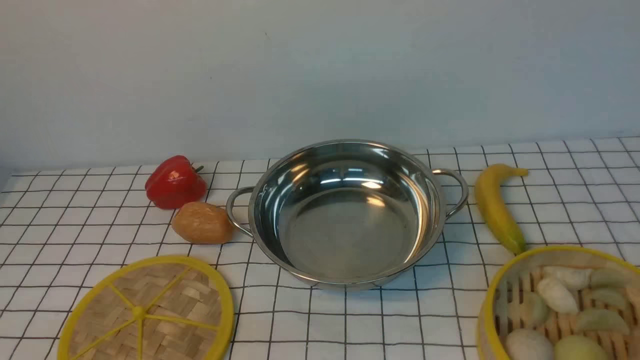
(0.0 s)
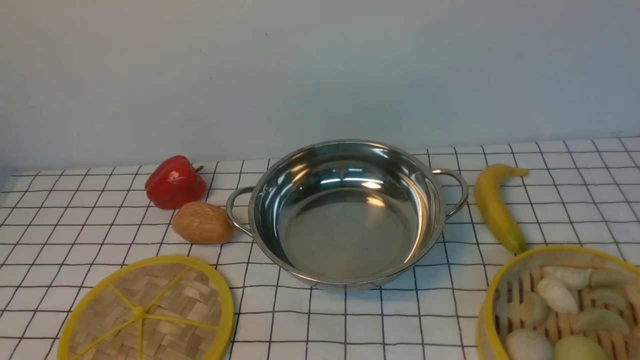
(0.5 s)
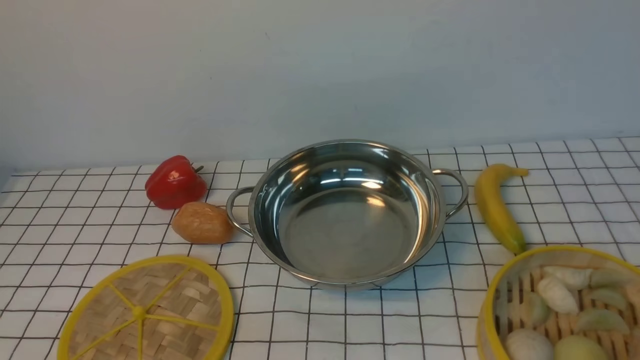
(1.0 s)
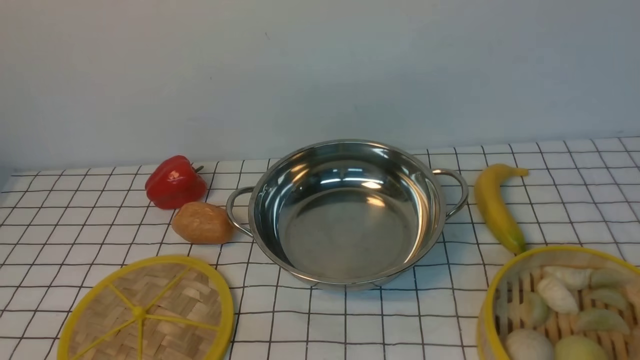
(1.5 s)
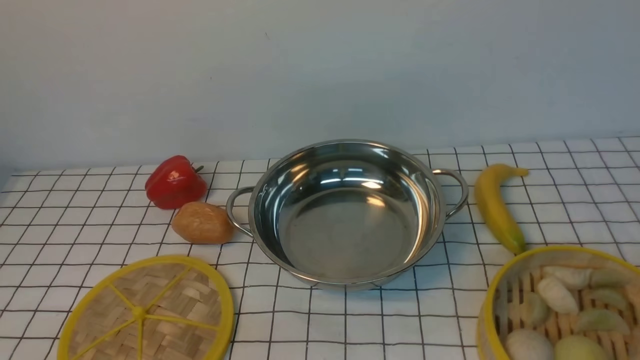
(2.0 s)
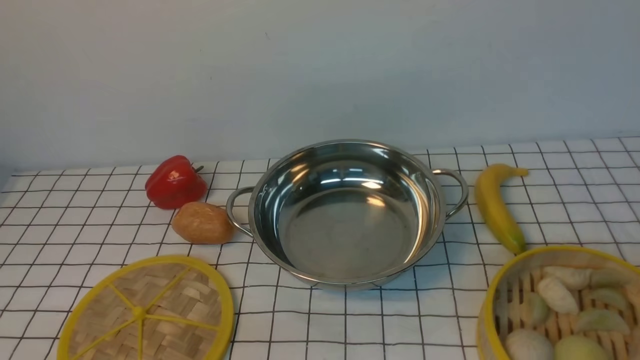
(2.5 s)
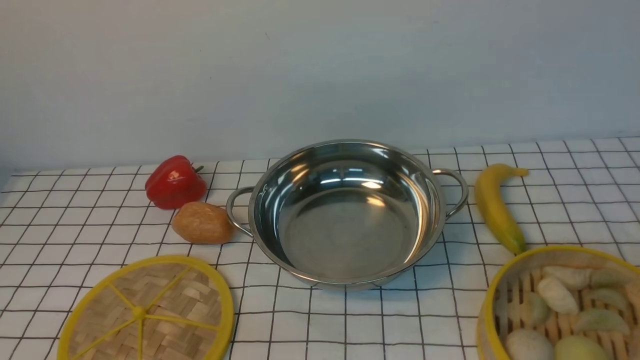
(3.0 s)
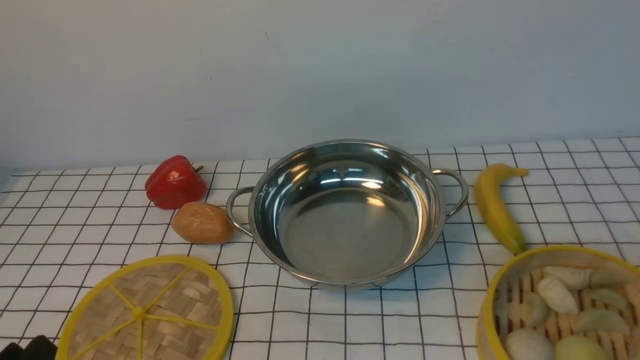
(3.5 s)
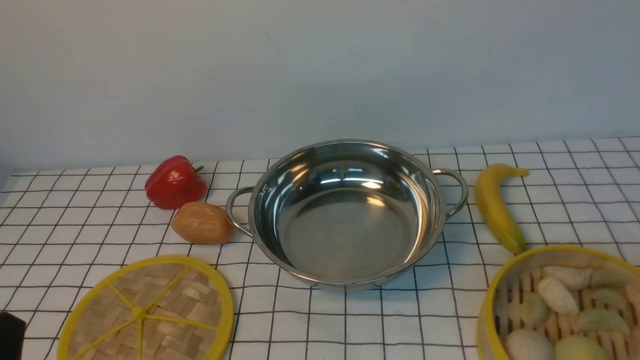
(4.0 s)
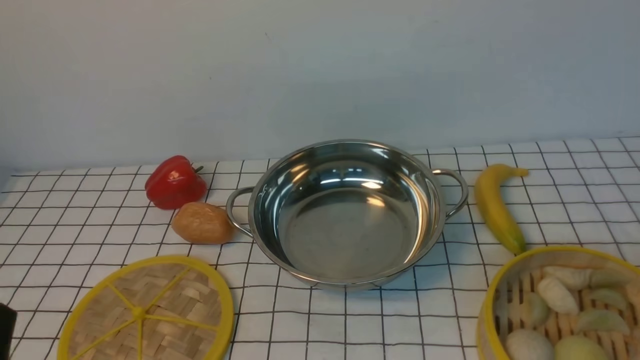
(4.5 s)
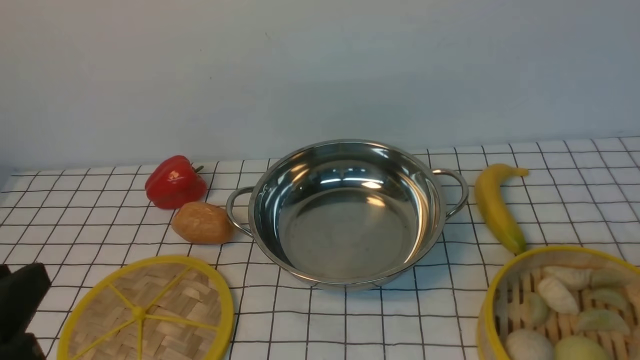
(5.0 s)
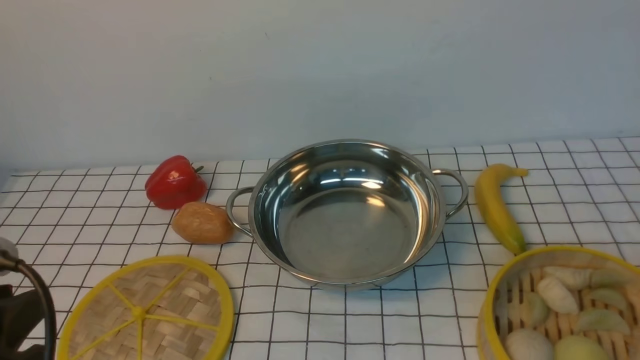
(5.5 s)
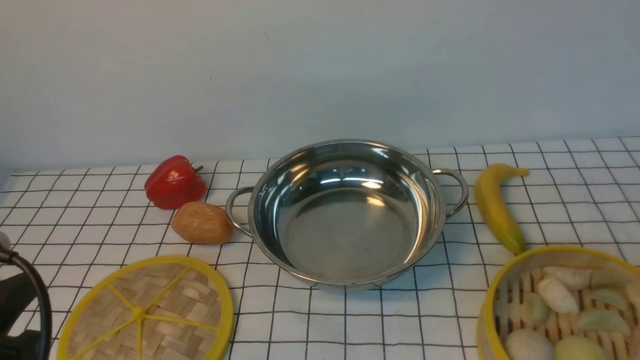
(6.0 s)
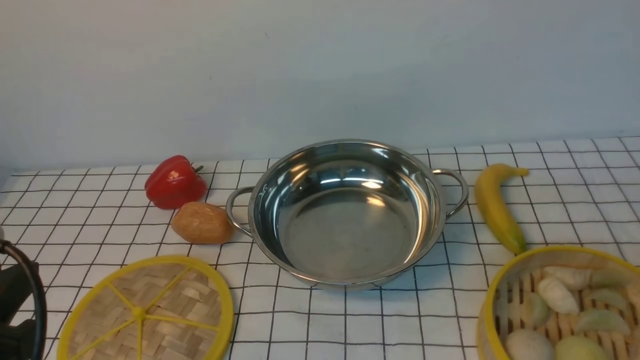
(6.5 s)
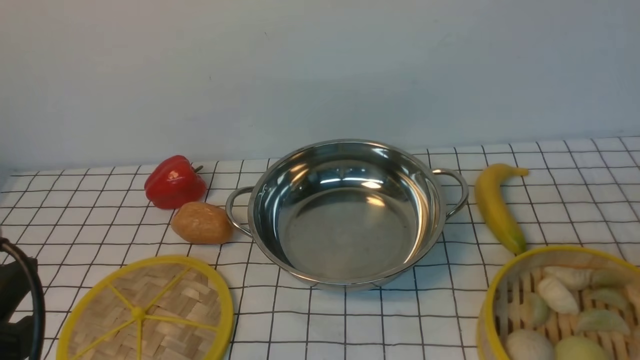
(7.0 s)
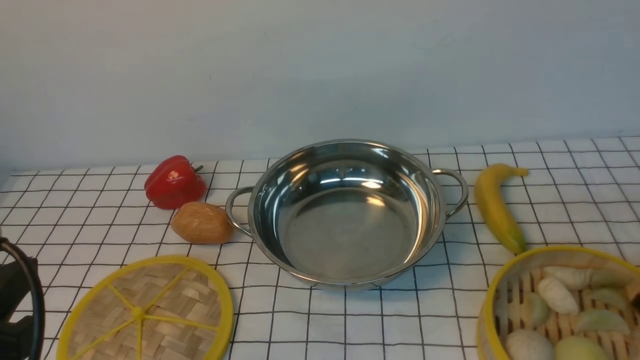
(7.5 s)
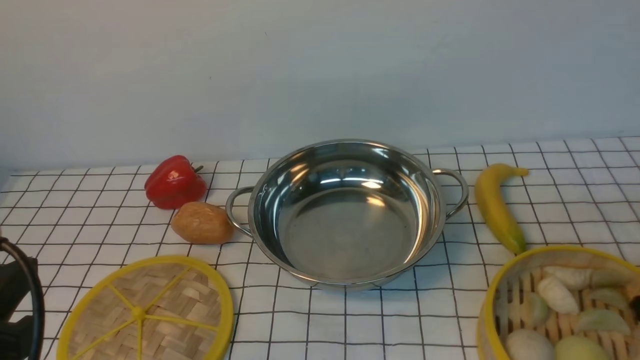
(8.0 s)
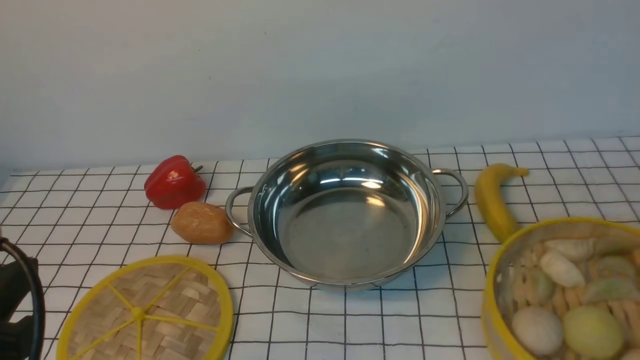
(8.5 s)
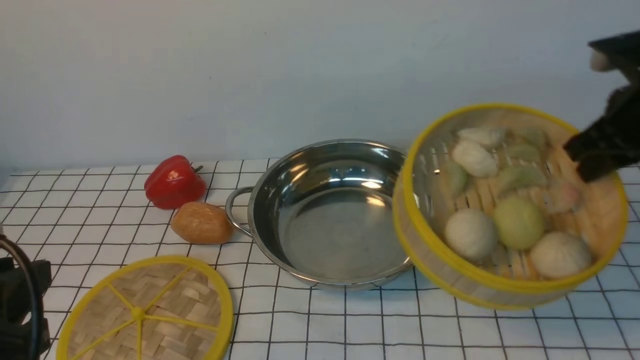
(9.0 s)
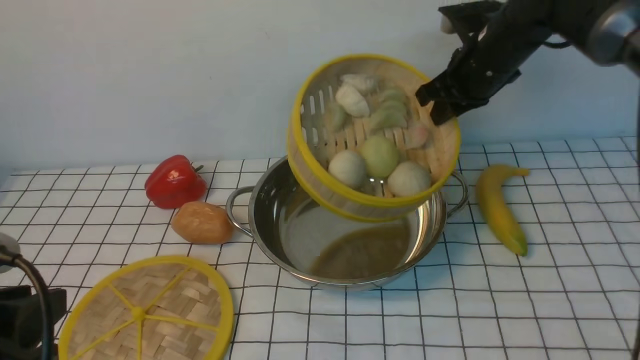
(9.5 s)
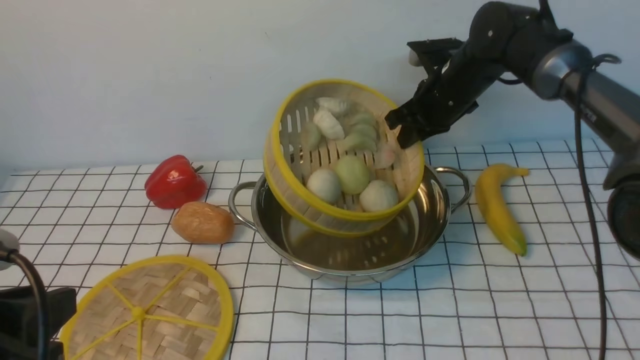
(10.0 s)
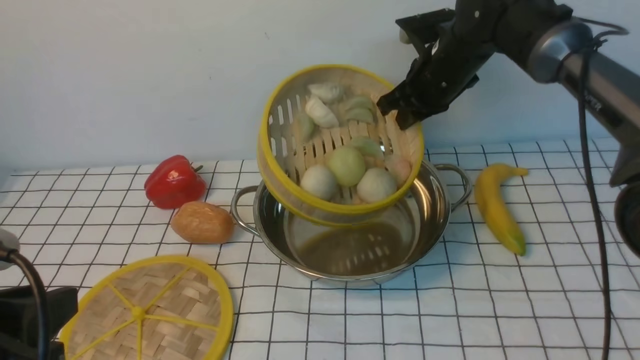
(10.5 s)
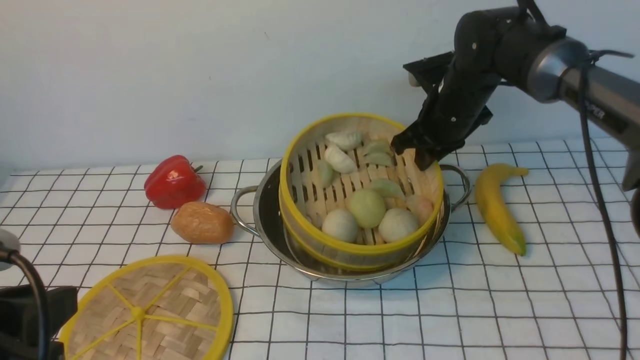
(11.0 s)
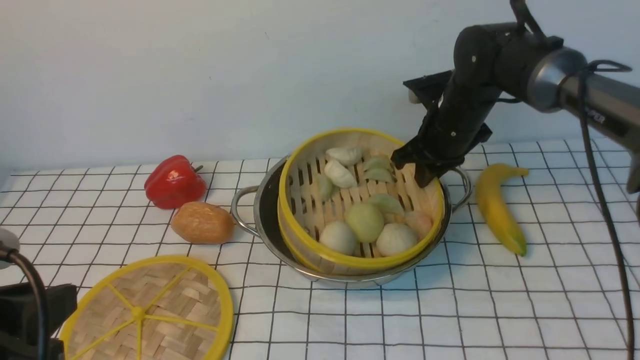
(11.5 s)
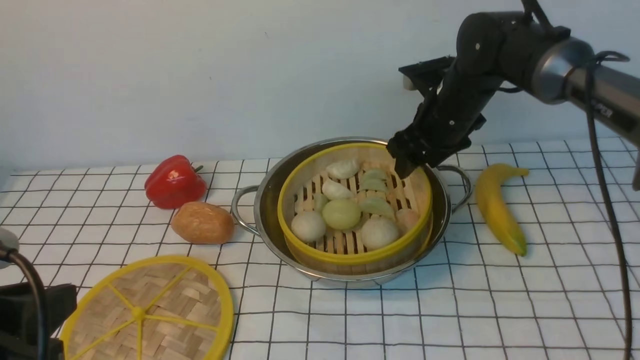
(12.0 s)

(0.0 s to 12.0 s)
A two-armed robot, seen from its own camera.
Task of the whole recording: place the steamer in the pot on the white tablecloth, and put the lid on the steamer.
Step, 0.0 s - 8.0 s: use the right arm to lift the steamer closest to it.
Step, 8.5 s - 12.0 s: use the right arm to put the steamer into the iron steamer pot in the middle.
4.0 s - 6.0 s: The left gripper moves upward, some 10 cm.
8.0 s - 10.0 s: The right gripper shifts some 30 cm forward and to the left.
10.0 s - 12.0 s: The right gripper opens its fingers.

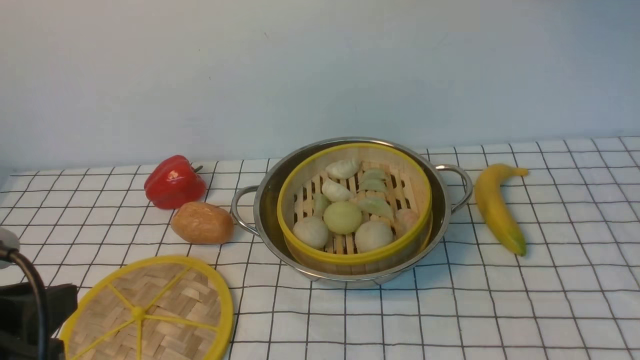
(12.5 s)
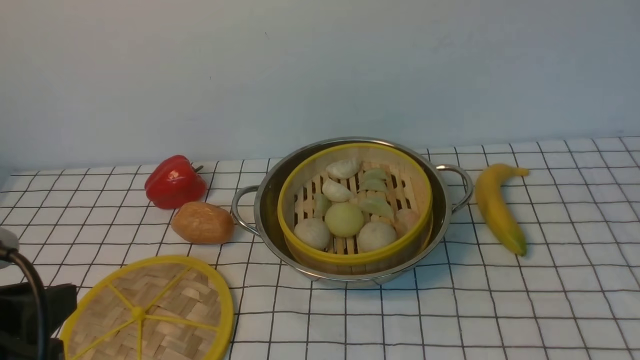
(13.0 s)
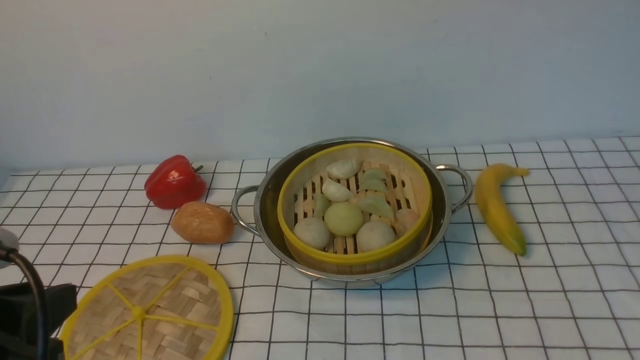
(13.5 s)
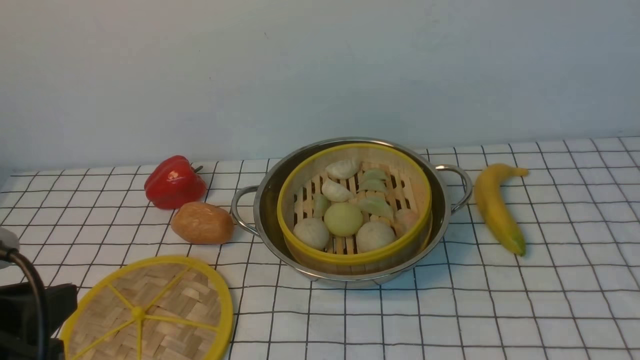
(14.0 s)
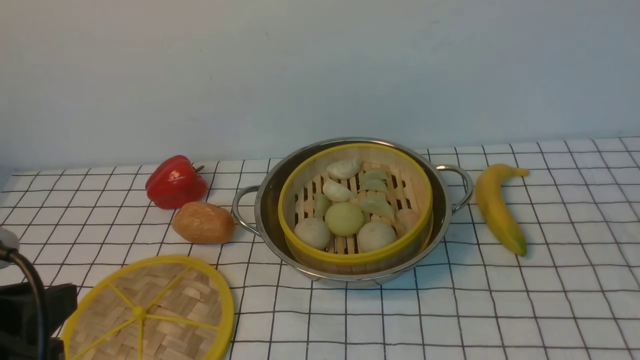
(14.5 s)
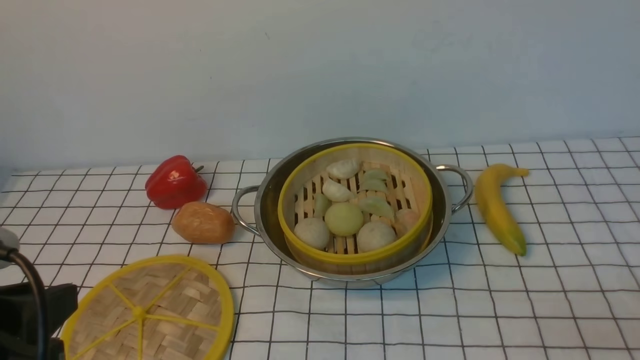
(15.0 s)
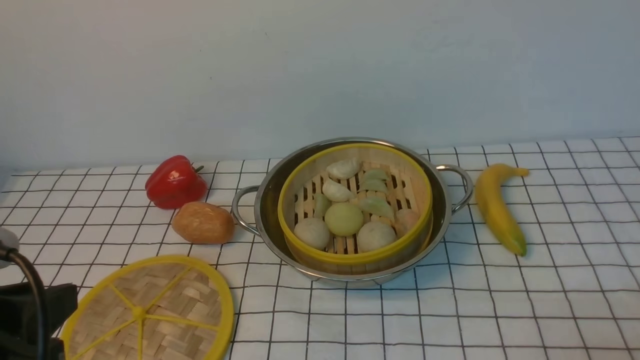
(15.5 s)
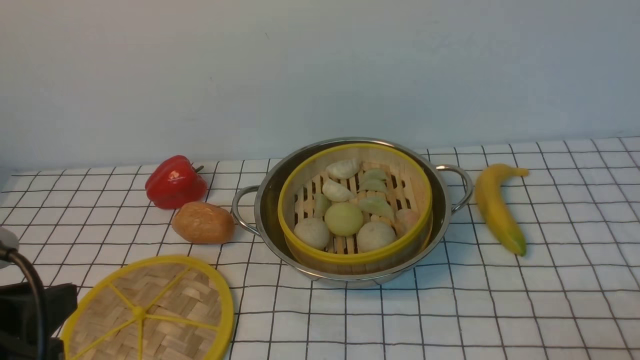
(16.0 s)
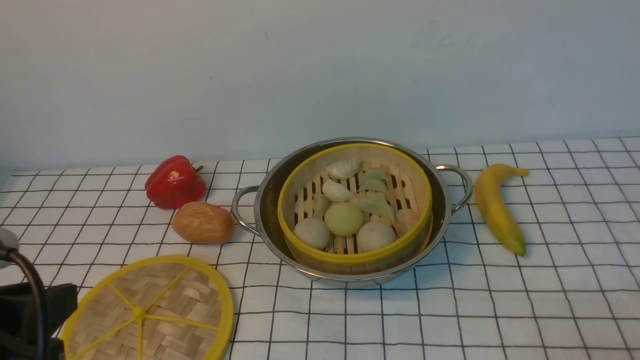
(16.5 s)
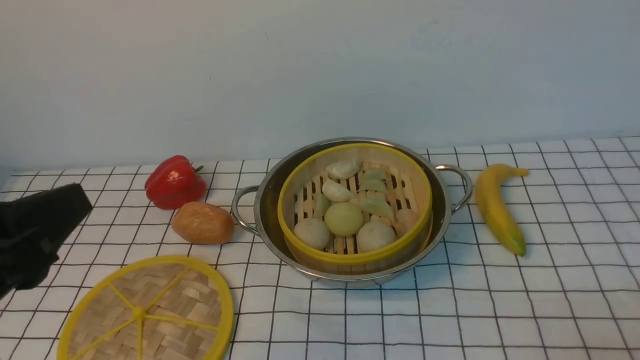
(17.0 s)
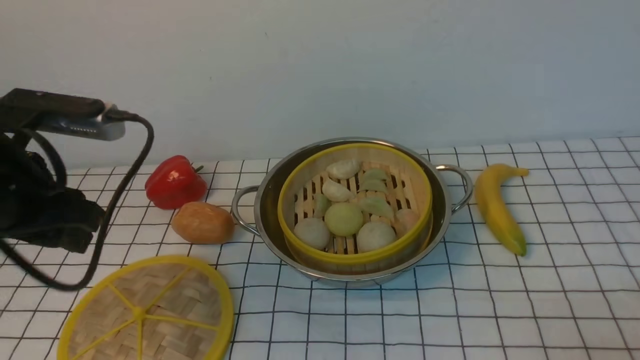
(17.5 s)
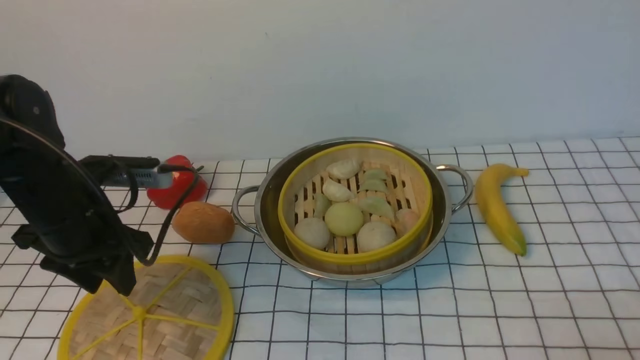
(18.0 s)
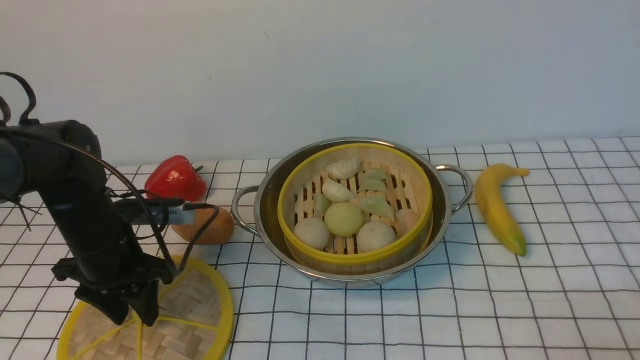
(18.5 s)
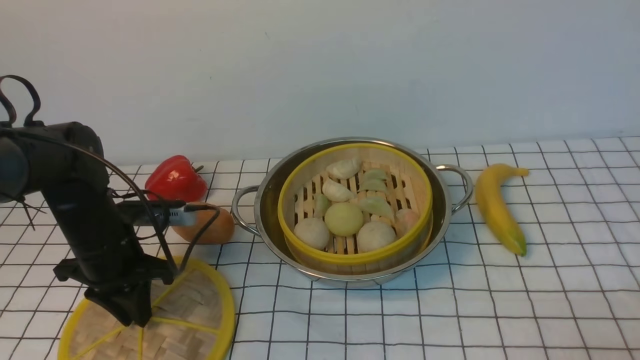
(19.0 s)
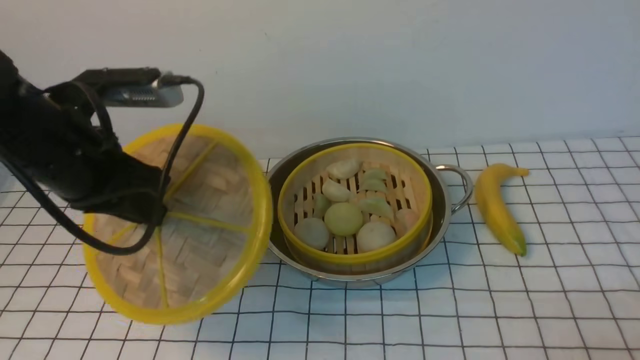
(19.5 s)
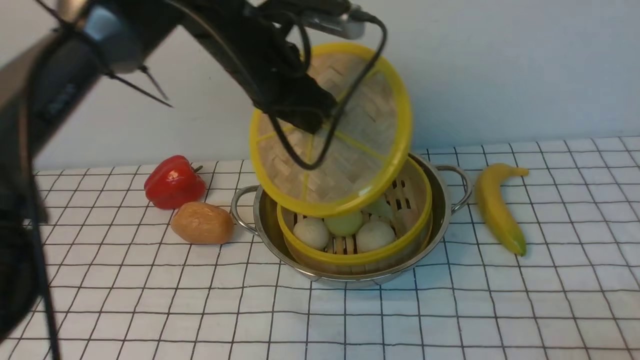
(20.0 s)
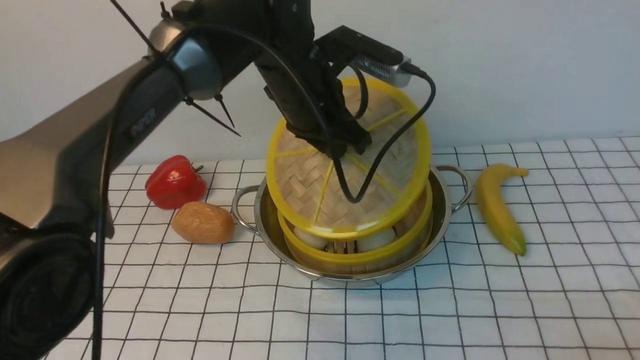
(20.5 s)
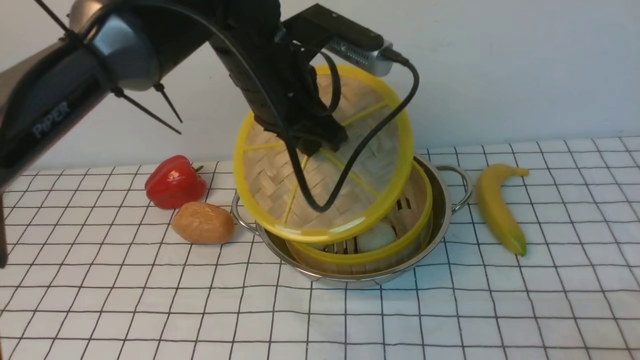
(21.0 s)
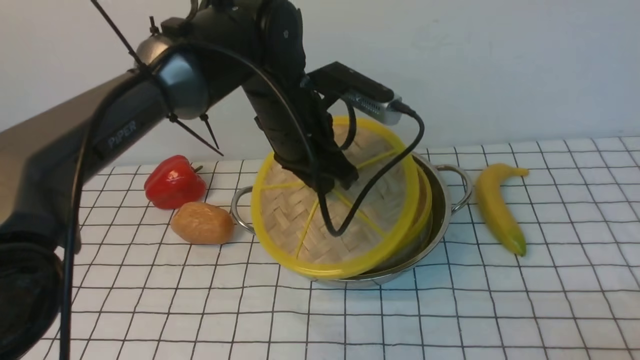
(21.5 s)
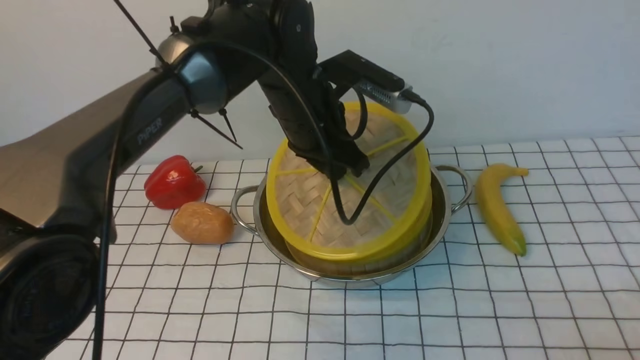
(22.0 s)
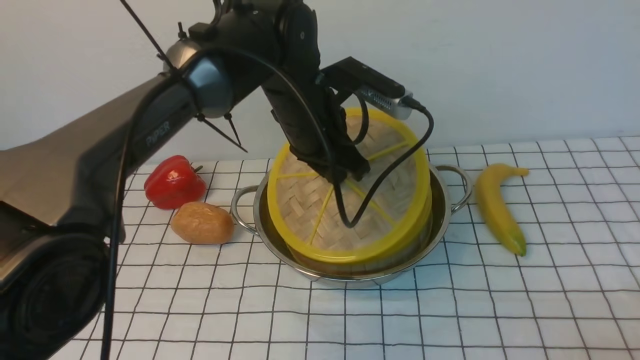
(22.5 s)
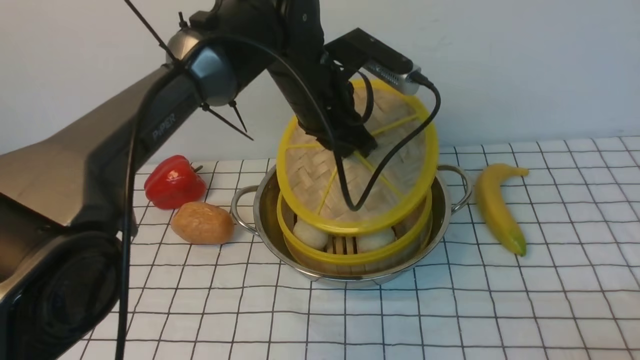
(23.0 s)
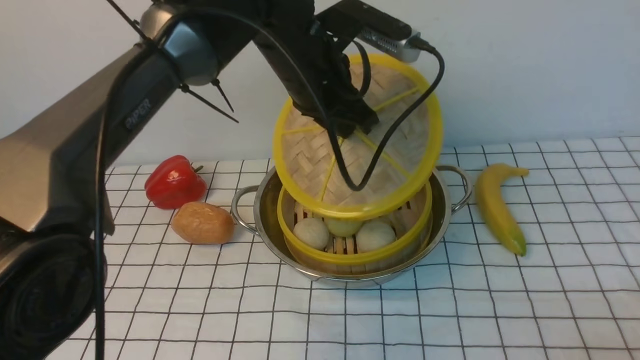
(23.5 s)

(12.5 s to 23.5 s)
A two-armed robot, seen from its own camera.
Task of the whole recording: place the steamer in the pot on the white tablecloth, and put the lid on the steamer.
Step, 12.5 s - 19.0 s: use the left arm to lift the lid of the steamer.
12.5 s - 14.5 s: The right gripper shifts about 40 cm backward and downward.
16.0 s - 18.0 s: The left gripper travels forward by some 20 cm, and opens.
18.0 s - 20.0 s: The left gripper goes about 25 cm to the right, forward and upward, and closes its fingers.
